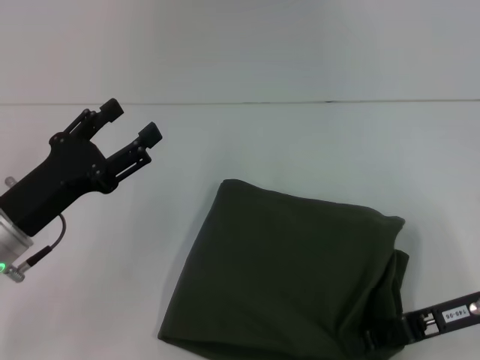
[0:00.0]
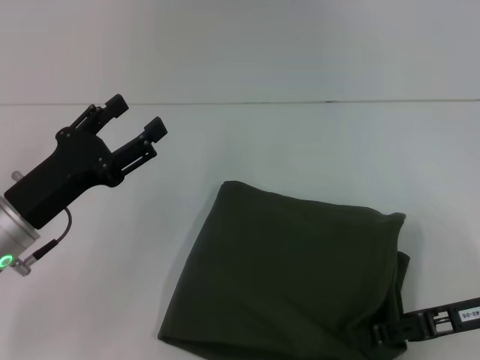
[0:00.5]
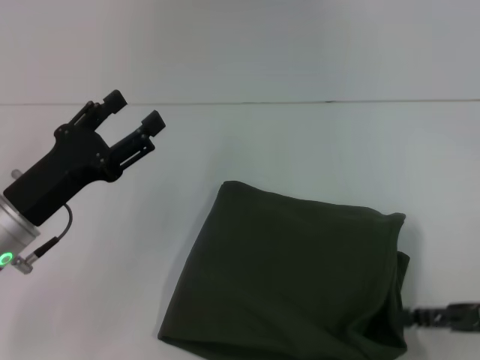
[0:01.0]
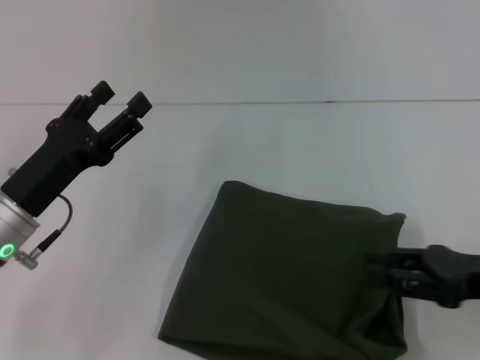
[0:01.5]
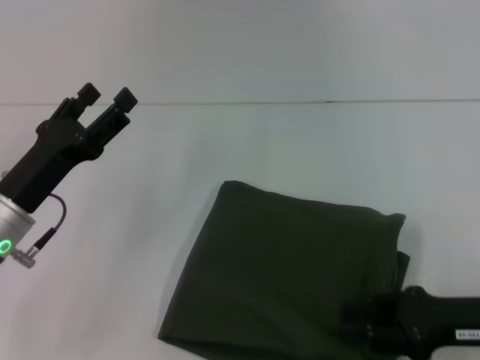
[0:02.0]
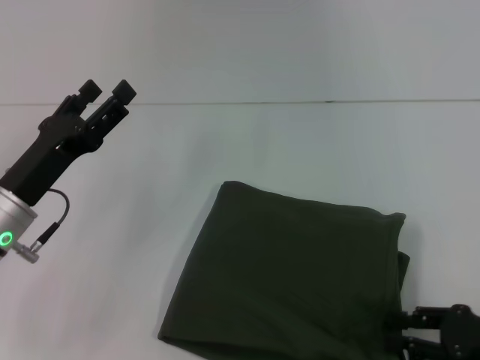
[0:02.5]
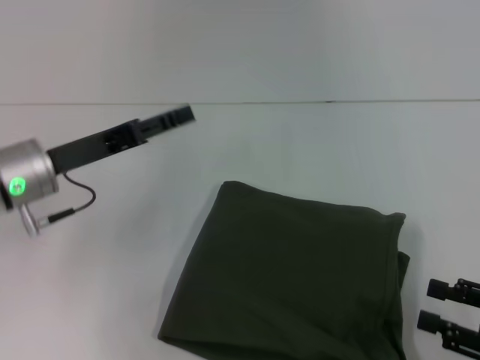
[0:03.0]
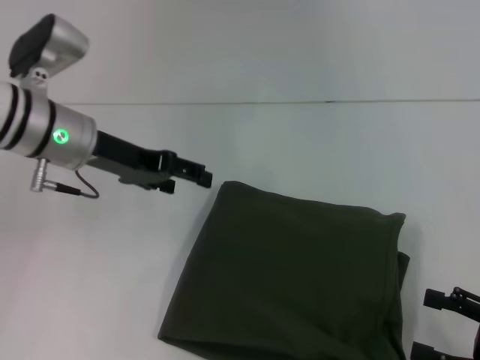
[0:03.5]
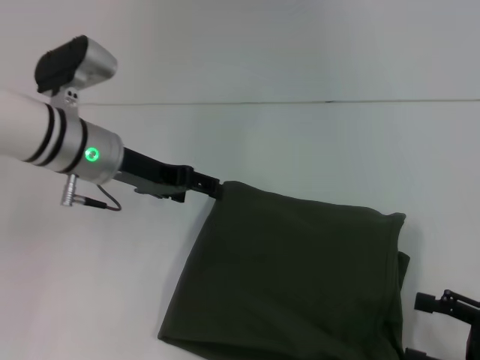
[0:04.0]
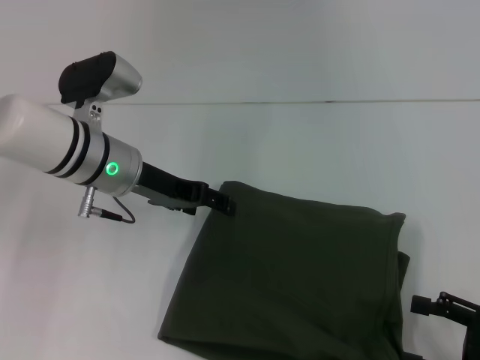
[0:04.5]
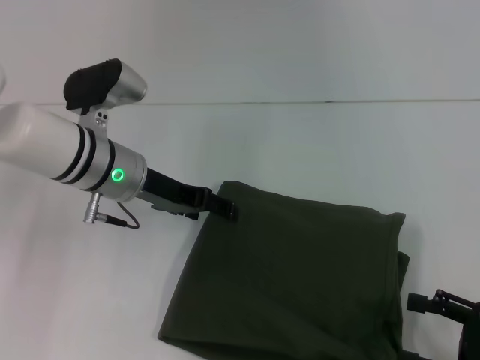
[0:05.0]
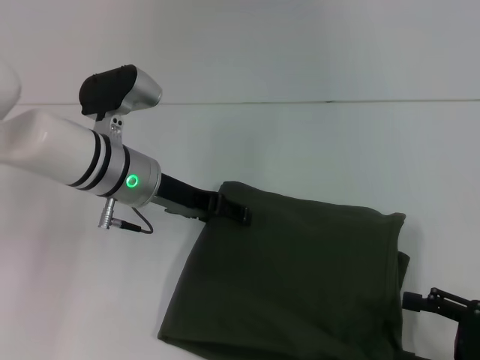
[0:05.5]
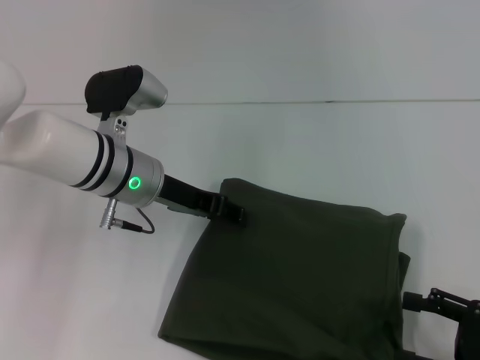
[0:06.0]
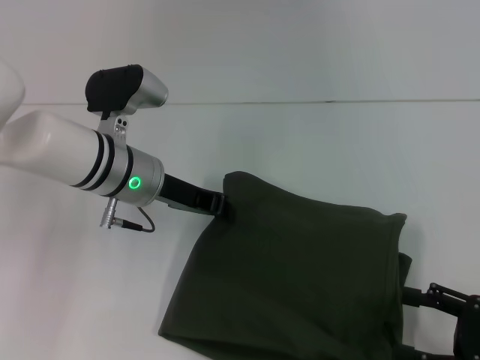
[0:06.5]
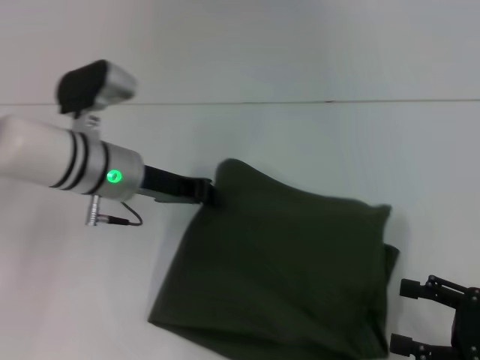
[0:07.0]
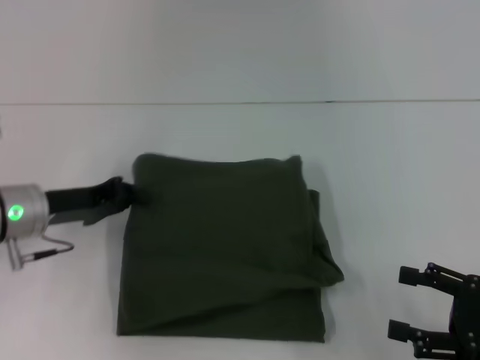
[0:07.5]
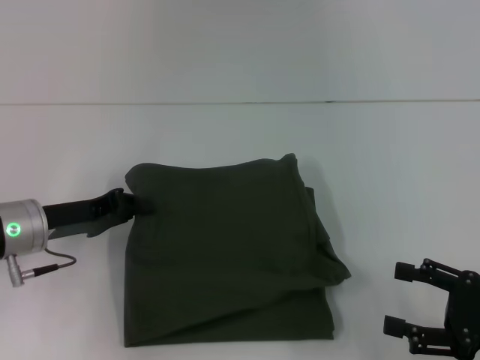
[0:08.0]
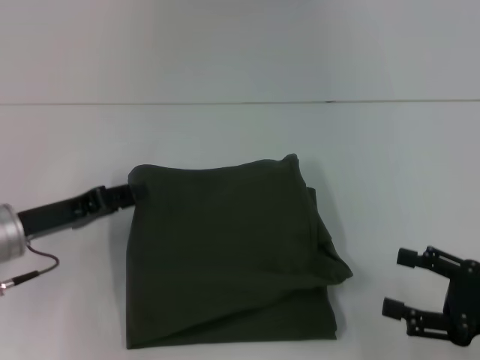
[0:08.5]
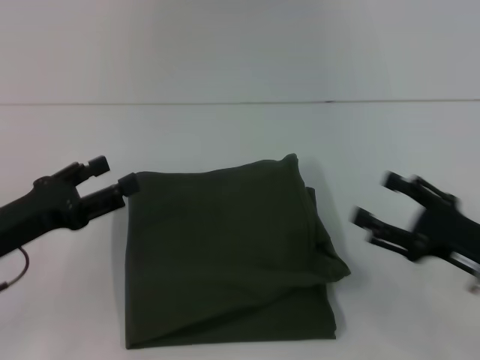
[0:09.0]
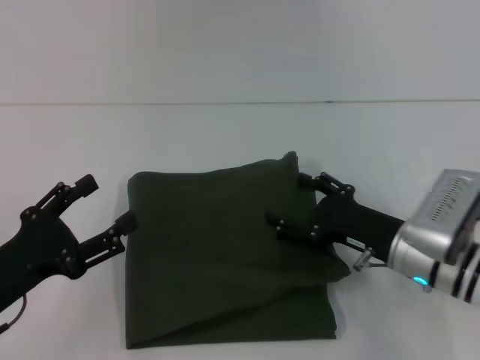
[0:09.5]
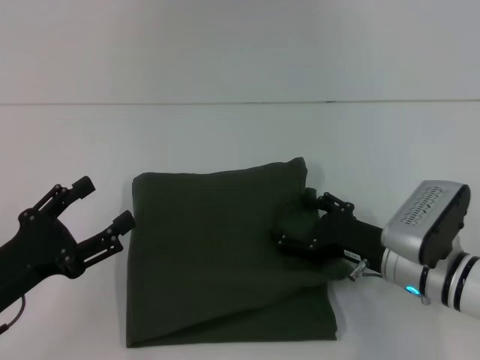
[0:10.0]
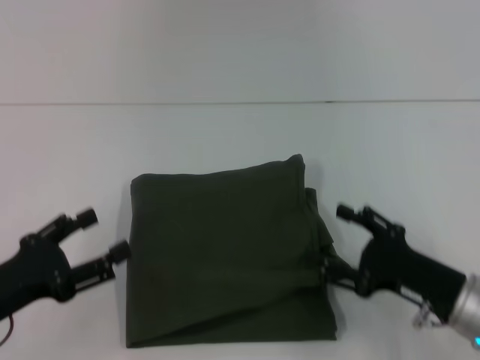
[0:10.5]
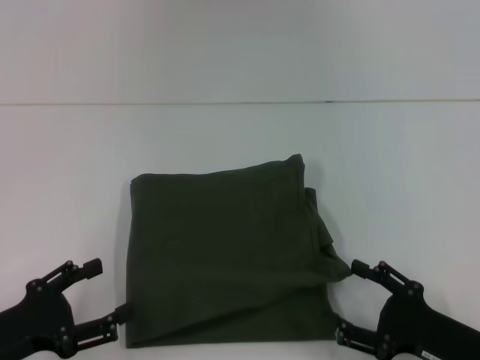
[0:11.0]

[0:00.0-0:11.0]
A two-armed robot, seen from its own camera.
0:00.0 to 0:02.0: The right gripper opens its fingers.
0:02.0 to 0:03.5: The left gripper is displaced forward and upward by some 15 cm. The right gripper shifts roughly 10 cm backward and to the right, and opens its fingers.
0:03.5 to 0:05.5: The left gripper heads to the right, covering approximately 5 cm.
0:05.5 to 0:07.5: The left gripper heads to the left, covering about 10 cm, and closes its fingers.
0:07.5 to 0:09.0: The left gripper is displaced backward by about 10 cm, and opens up, while the right gripper shifts by about 5 cm.
0:09.0 to 0:11.0: The left gripper shifts about 10 cm backward; the right gripper heads backward and downward, covering some 10 cm.

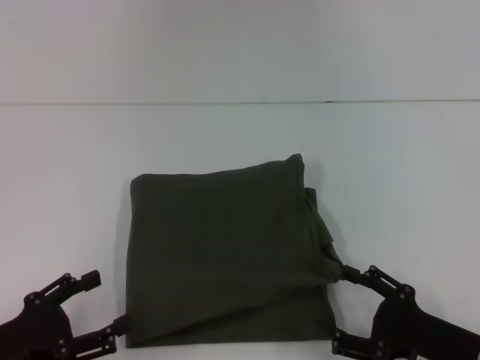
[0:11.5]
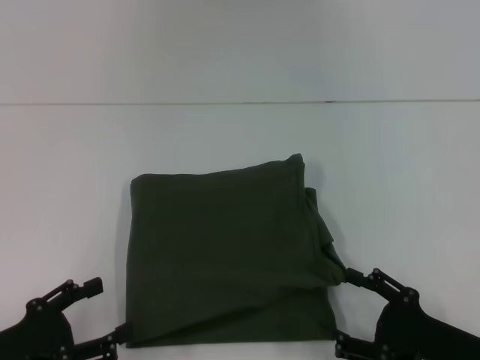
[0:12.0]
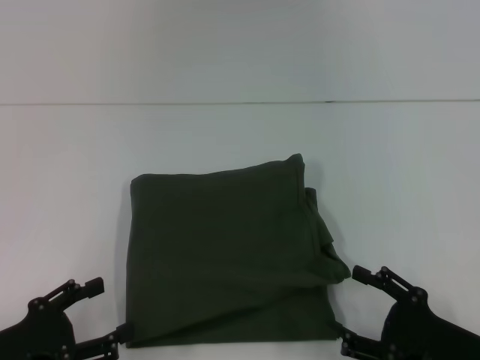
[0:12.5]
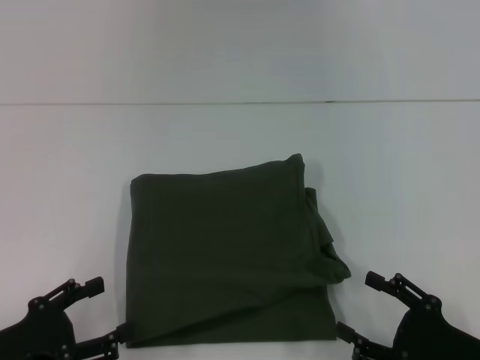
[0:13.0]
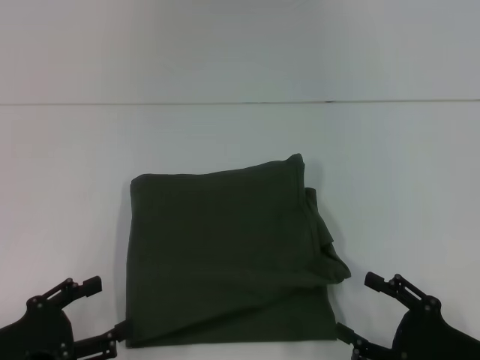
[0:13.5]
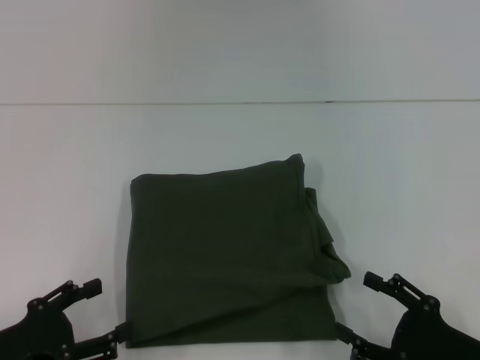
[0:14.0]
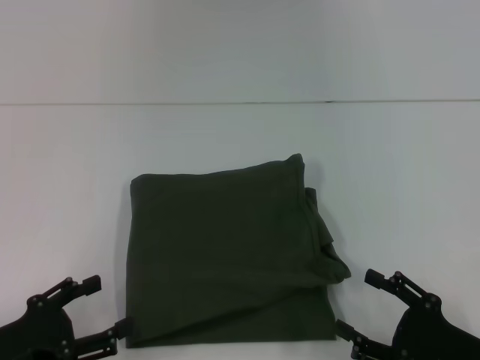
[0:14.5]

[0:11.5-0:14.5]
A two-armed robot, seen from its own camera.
0:11.5 to 0:13.0: The grippers move only a little.
0:13.0 to 0:14.5: Neither gripper changes place.
